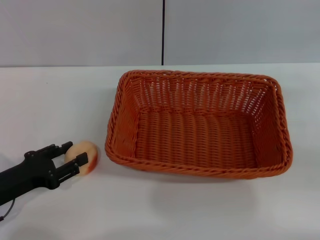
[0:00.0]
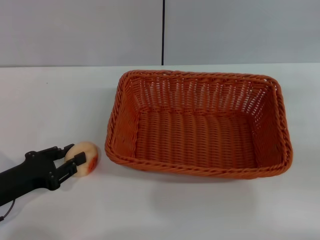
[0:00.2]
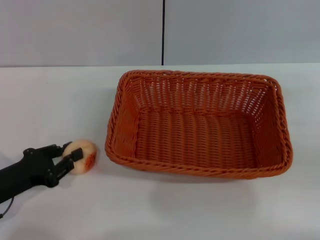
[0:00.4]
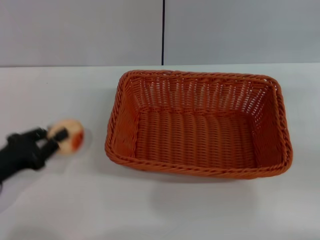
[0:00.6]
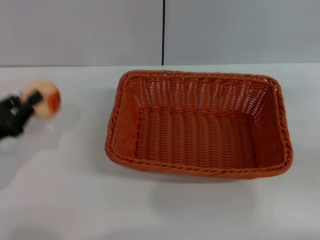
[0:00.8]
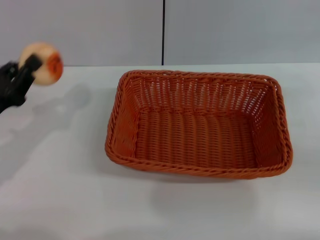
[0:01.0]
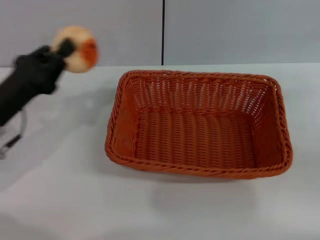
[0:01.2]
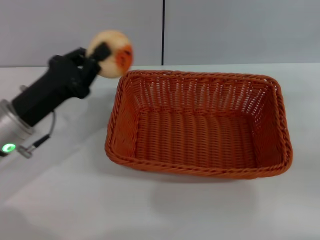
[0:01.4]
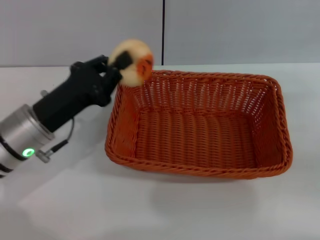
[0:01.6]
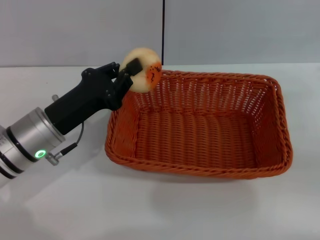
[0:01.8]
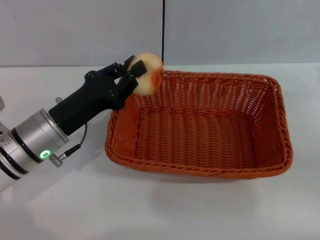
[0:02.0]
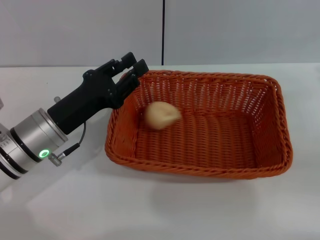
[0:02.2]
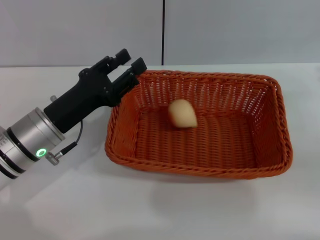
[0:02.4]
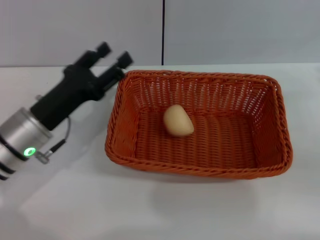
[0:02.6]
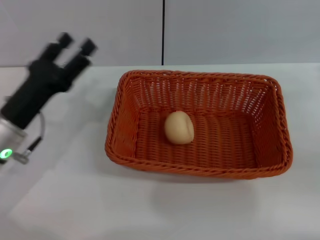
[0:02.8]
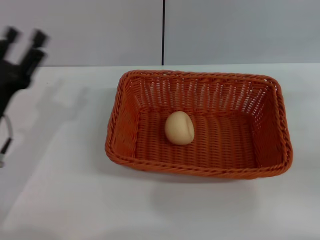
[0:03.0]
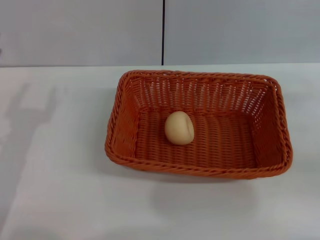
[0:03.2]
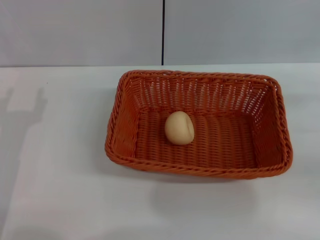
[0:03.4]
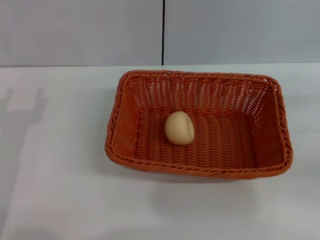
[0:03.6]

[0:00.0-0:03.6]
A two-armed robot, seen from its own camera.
Step, 0.8 to 2.0 s: Place the egg yolk pastry into the basket with the left gripper.
0.0 to 1.8 s: The left gripper heads to the right, forward and upward, covering some 15 cm, and closes.
1.8 to 3.6 s: The left gripper heads to the left and backward, covering roughly 10 cm, and opens up.

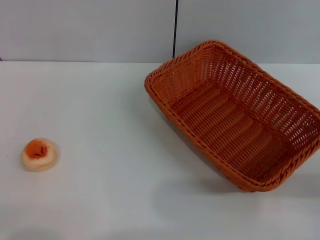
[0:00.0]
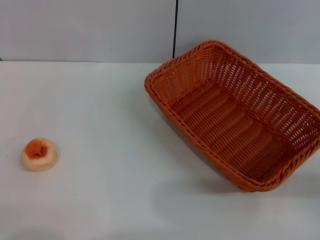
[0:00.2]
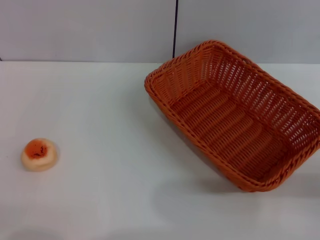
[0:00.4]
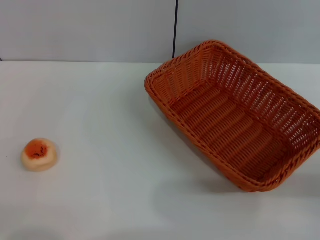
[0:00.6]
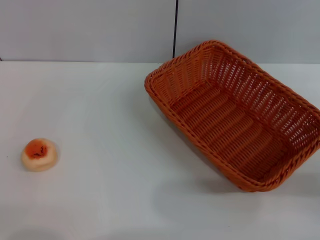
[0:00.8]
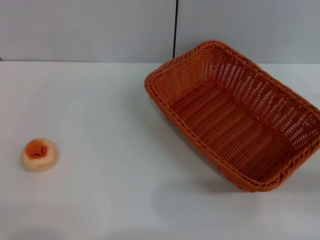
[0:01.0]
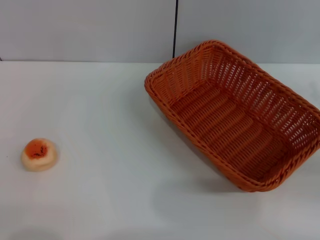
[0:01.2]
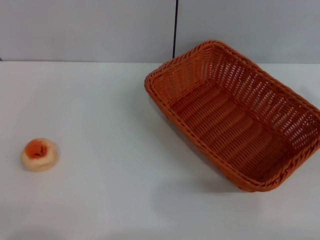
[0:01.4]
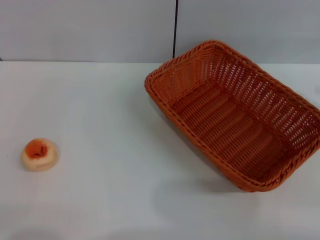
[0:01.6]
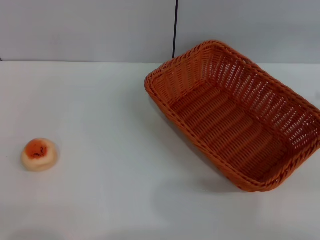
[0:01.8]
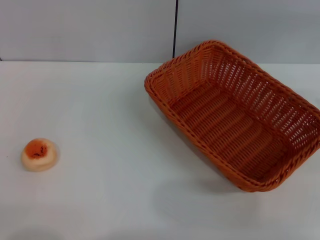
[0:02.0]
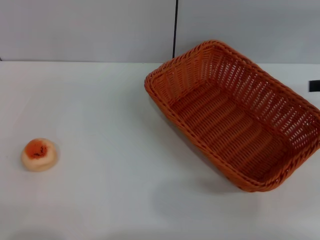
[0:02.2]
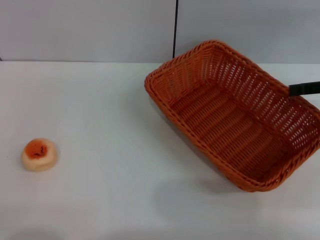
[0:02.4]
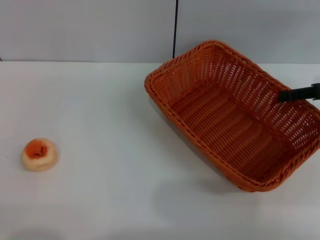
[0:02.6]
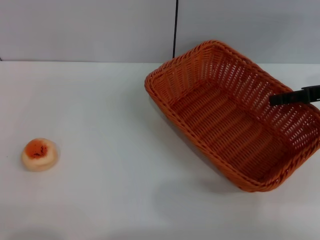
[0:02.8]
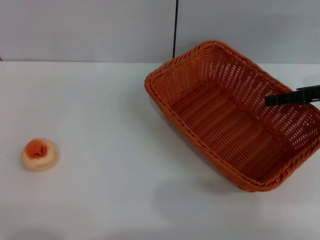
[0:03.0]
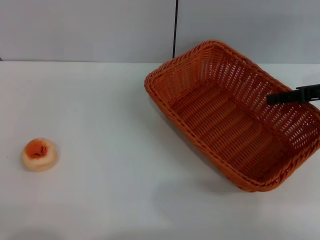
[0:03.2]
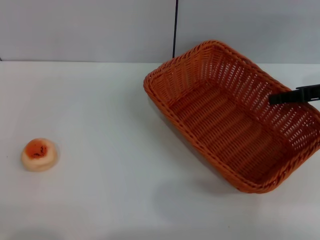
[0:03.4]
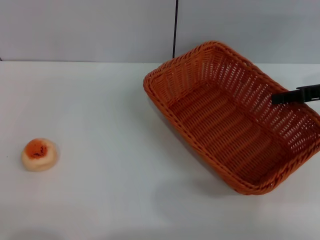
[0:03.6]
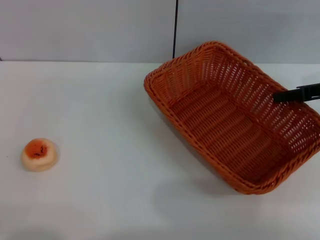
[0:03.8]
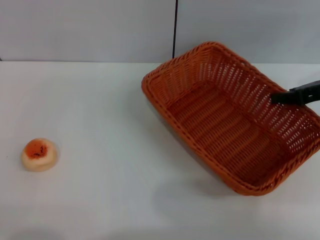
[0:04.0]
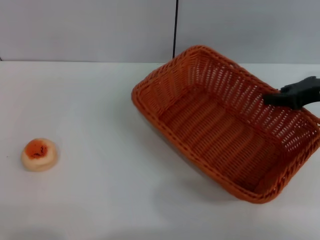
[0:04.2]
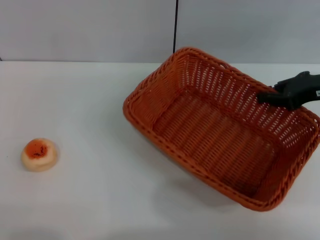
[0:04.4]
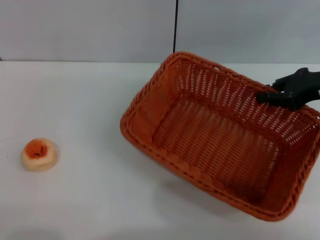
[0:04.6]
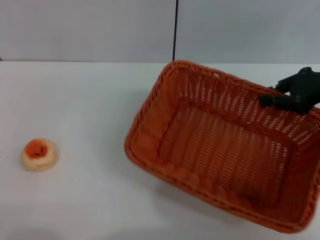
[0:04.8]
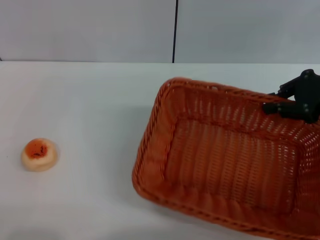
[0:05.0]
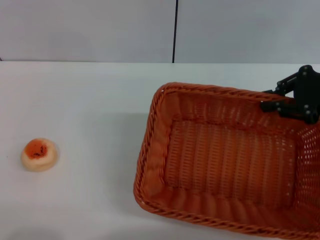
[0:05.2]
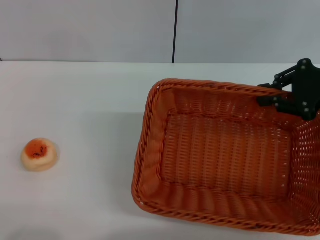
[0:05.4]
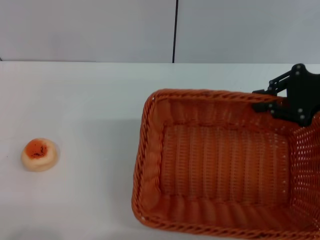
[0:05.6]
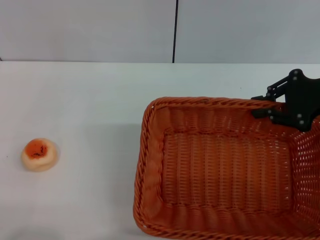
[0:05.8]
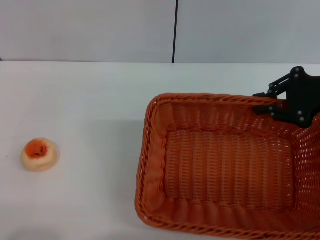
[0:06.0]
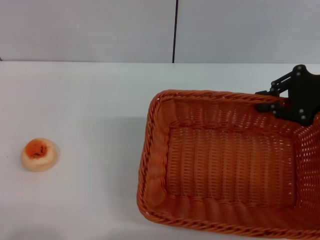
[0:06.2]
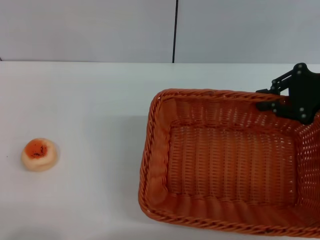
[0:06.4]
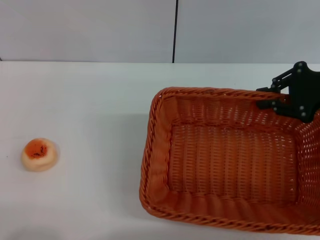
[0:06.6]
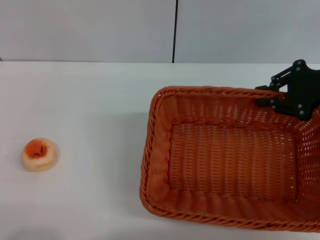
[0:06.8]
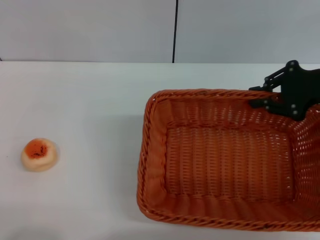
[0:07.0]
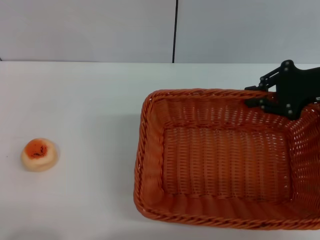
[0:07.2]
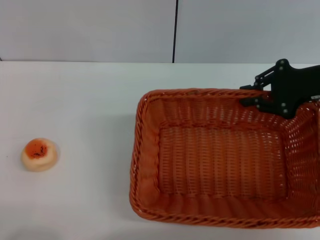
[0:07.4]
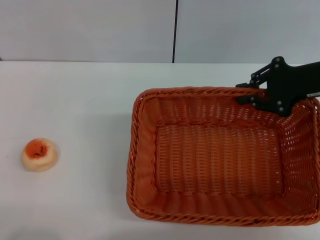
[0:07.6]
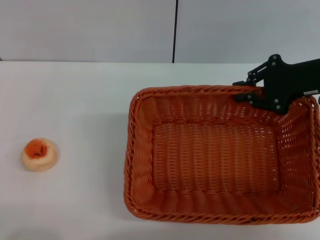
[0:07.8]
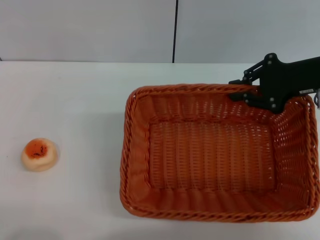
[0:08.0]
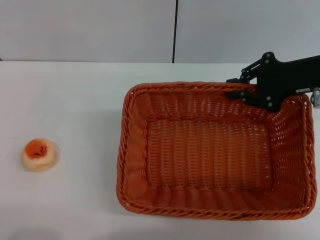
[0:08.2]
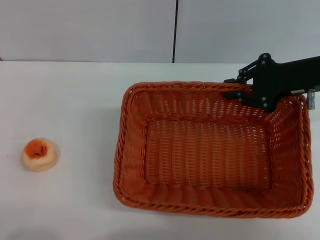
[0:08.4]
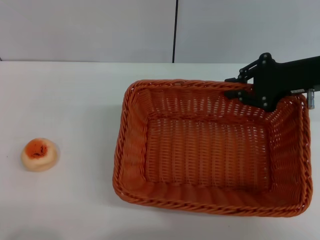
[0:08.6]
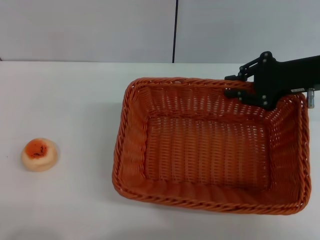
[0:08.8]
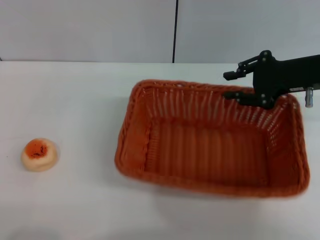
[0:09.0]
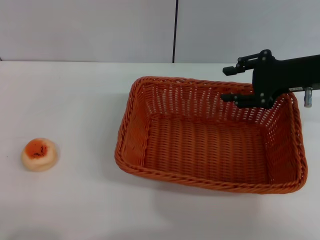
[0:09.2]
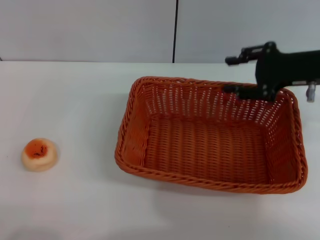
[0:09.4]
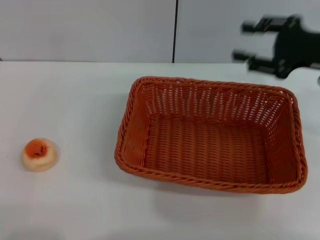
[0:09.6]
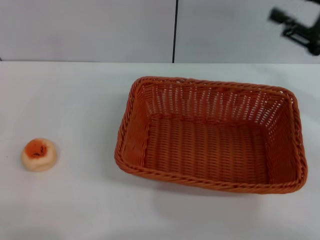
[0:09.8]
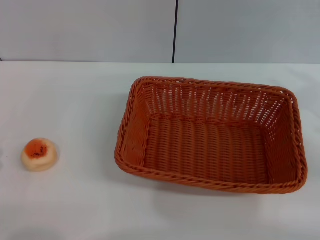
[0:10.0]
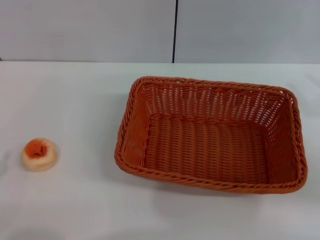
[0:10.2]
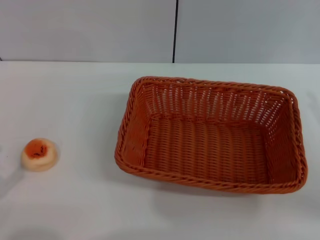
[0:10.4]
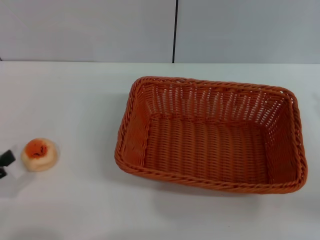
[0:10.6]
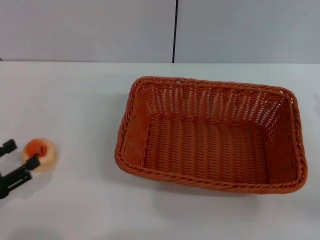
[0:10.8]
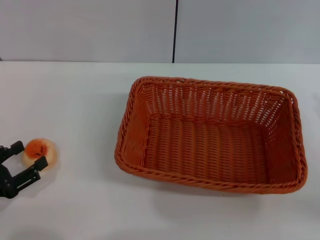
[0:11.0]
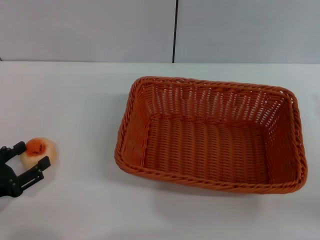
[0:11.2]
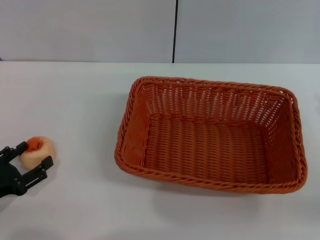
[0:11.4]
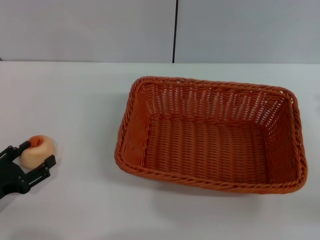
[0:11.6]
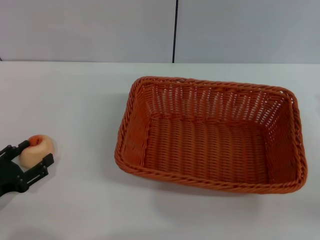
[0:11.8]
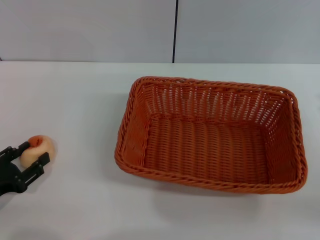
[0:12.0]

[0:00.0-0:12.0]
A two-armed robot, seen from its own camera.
Step, 0.0 to 9.4 s: Move the basket to the center of view with the right gripper.
0.0 to 1.6 s: The right gripper is displaced upward and forward by some 10 cm.
1.6 to 3.0 s: The right gripper goes about 10 cm to the left and forward.
3.0 to 4.4 s: The right gripper closes.
6.0 to 9.0 s: There are only small adjustments of the grippers.
9.0 to 10.4 s: The right gripper is displaced backward and to the right by roughly 15 cm, and opens up. Meanwhile the left gripper shifts by roughly 5 cm.
10.4 to 12.0 s: The left gripper ends up approximately 10 cm from where it was.

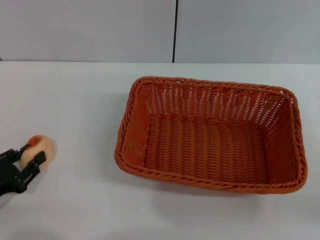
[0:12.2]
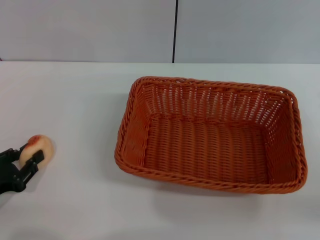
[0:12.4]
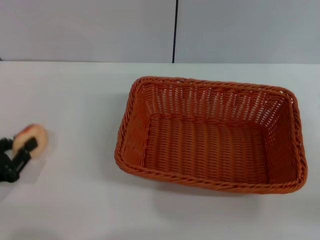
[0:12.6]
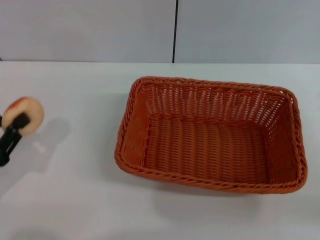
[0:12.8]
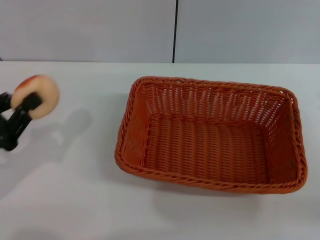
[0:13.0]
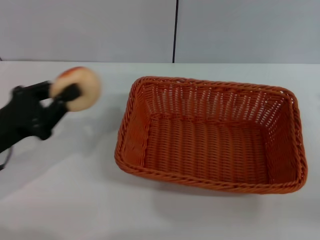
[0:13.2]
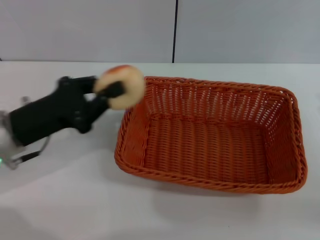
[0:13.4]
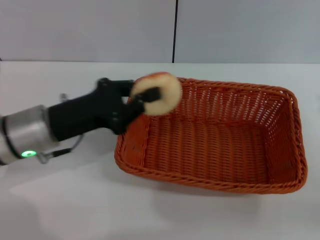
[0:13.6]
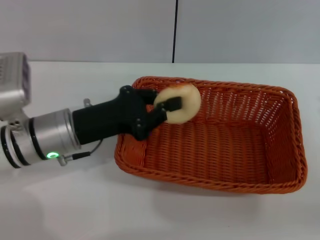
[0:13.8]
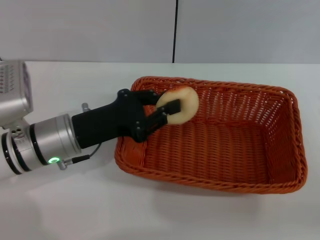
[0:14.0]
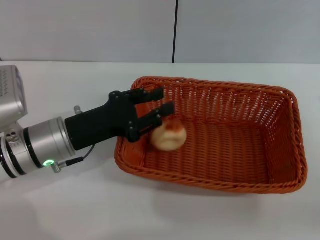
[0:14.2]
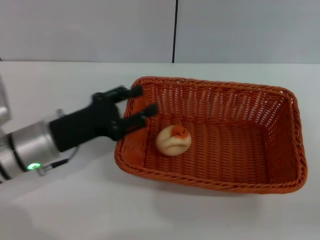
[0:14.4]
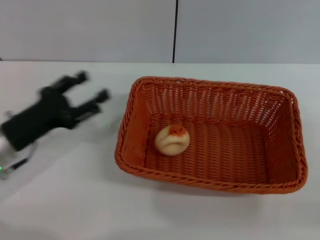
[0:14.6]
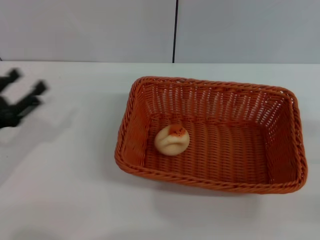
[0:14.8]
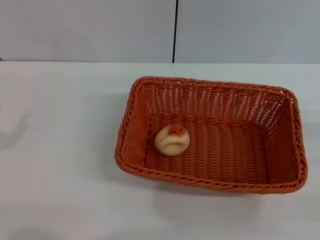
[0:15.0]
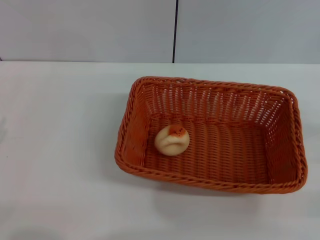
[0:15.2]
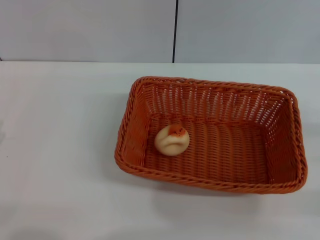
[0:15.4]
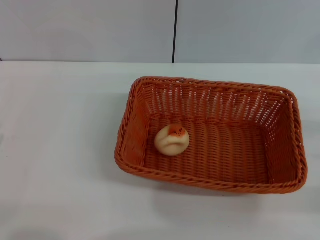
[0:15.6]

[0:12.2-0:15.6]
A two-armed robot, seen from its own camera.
Step, 13.0 to 14.4 s: Place the egg yolk pastry into the basket with the left gripper.
12.2 to 13.8 s: The left gripper shifts approximately 20 cm to the right, forward and upward, and closes up.
13.8 to 15.6 s: The left gripper shifts approximately 20 cm to the left and backward, and opens up, while the right gripper changes place by approximately 5 cm.

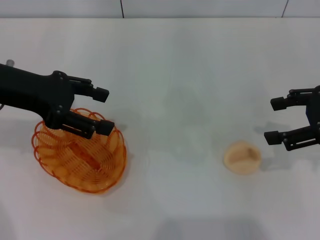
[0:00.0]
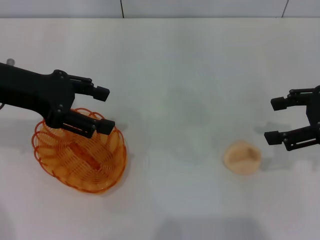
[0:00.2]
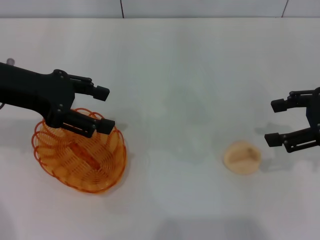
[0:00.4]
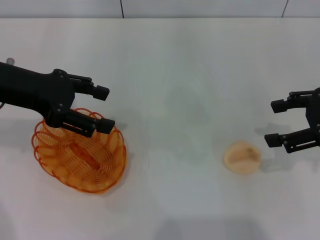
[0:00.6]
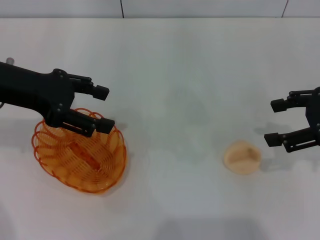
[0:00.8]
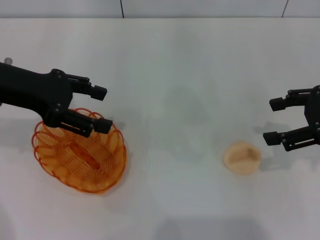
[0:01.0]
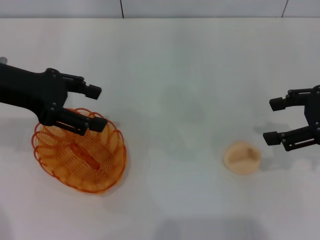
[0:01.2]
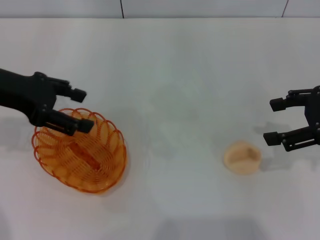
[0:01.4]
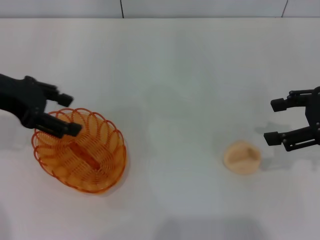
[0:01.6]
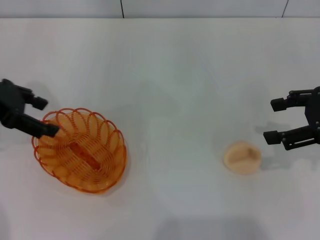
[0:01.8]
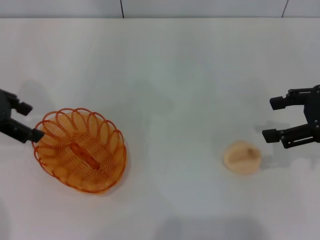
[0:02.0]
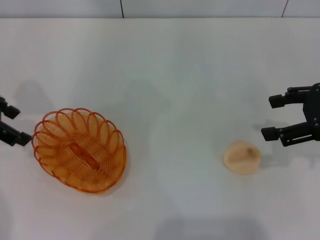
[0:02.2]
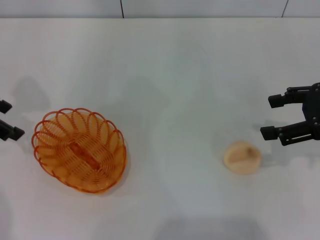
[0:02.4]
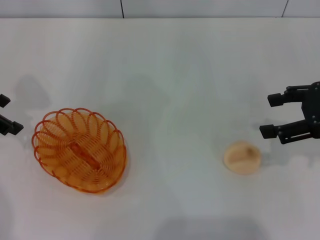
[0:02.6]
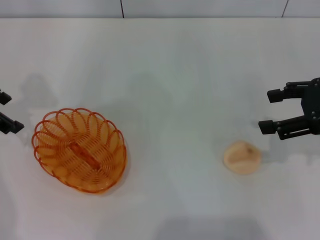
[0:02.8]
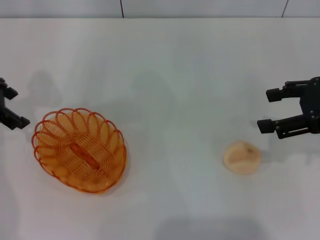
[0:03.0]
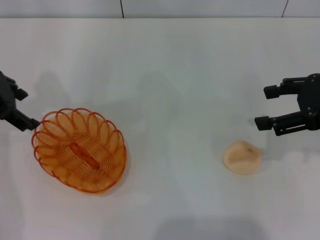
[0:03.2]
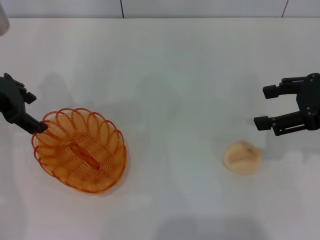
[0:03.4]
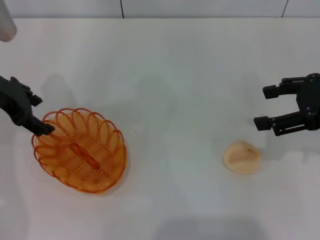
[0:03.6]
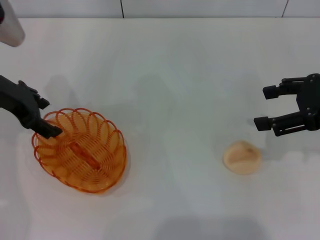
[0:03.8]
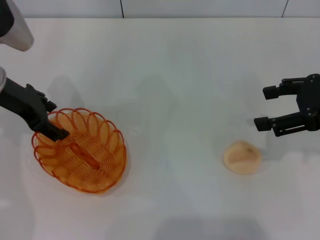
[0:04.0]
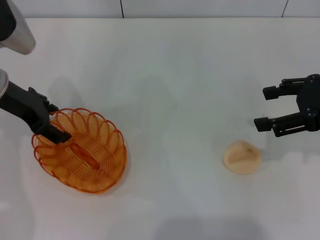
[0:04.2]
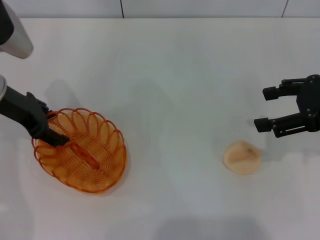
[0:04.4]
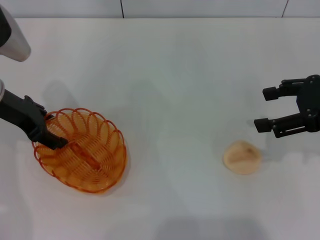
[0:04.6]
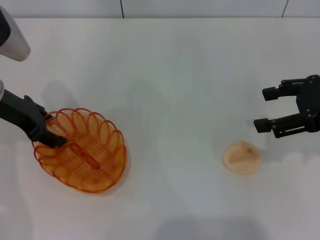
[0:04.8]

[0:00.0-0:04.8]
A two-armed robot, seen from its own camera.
0.0 to 1.6 s: There are only small adjustments of the grippers.
3.2 to 4.8 s: The left gripper goes some 5 cm downward.
